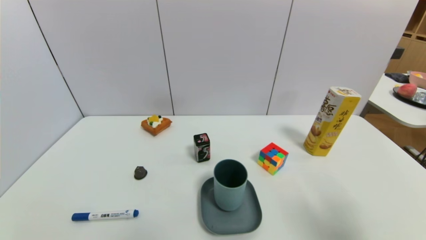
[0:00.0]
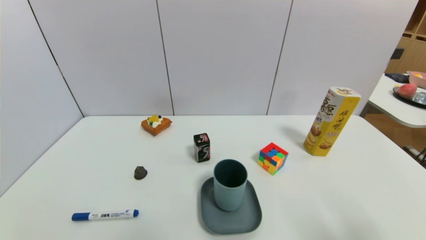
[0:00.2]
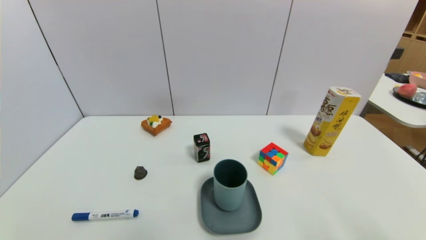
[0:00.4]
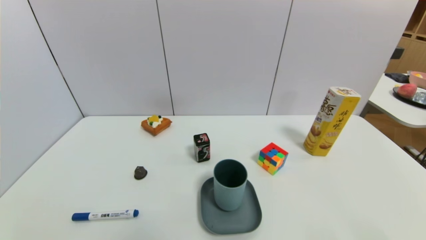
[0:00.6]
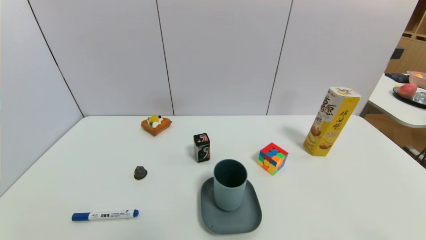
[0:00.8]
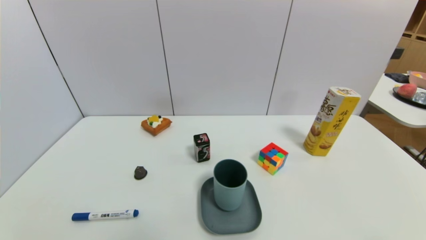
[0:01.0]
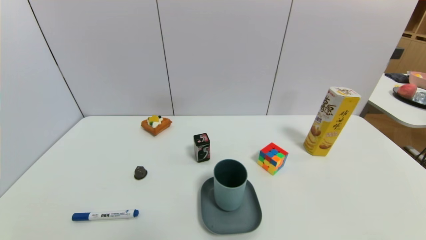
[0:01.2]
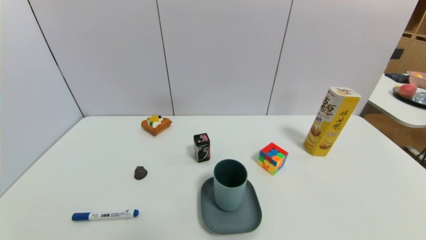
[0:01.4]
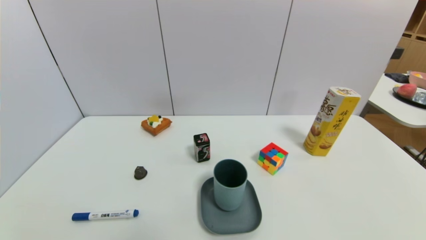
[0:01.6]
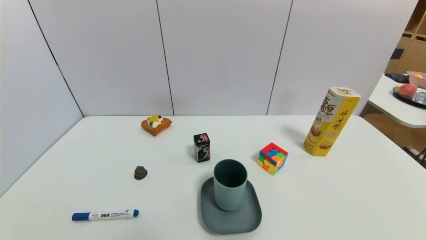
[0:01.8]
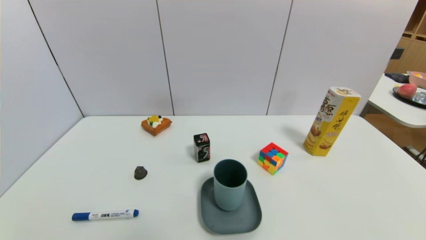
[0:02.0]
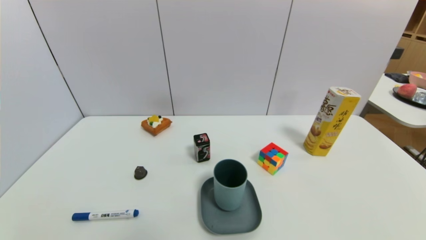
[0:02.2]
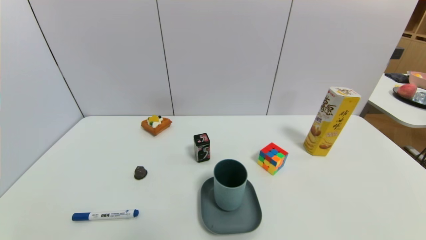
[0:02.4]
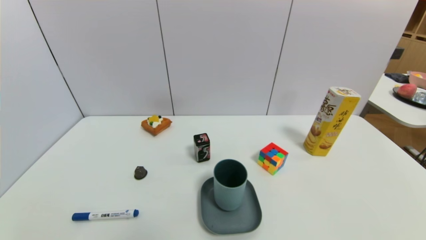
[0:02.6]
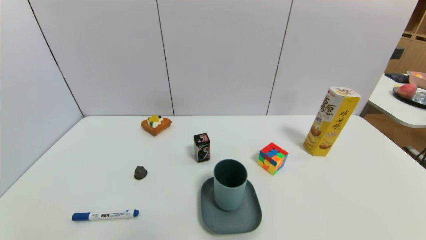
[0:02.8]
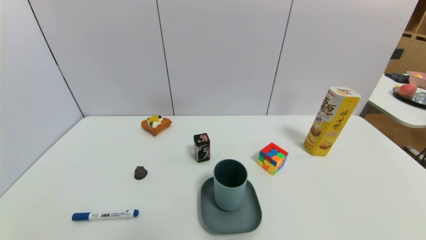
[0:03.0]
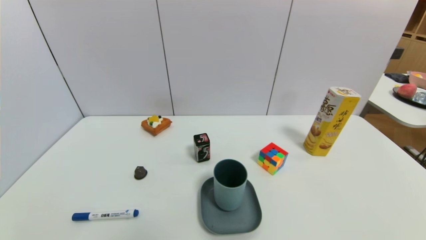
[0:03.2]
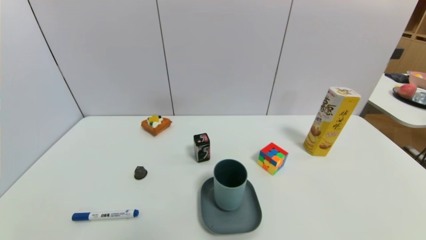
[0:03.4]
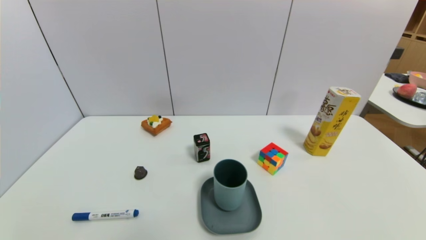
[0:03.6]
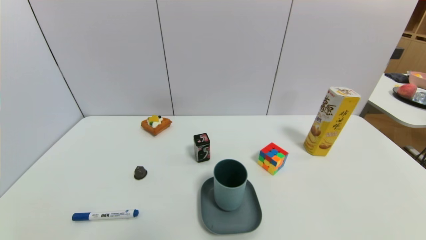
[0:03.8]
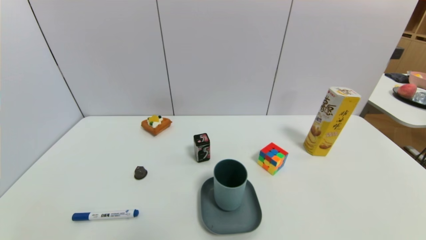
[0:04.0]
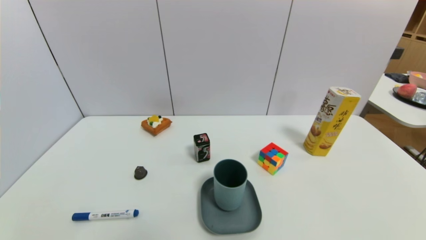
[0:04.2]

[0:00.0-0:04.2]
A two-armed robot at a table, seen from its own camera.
Task of the whole recording: use a gripper to pick the target object and place on the dish.
0:00.0 to 0:01.4: The right gripper goes roughly 20 cm downward and backward.
0:02.8 to 0:04.2: The two grippers keep their place.

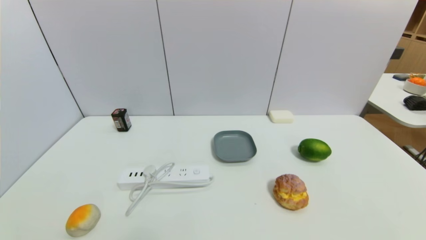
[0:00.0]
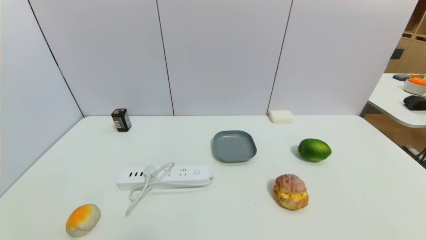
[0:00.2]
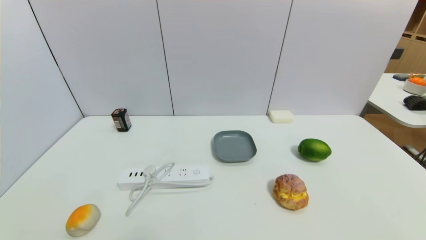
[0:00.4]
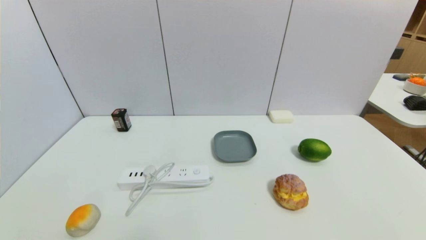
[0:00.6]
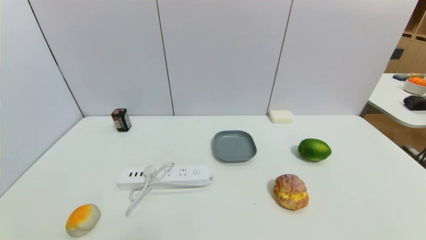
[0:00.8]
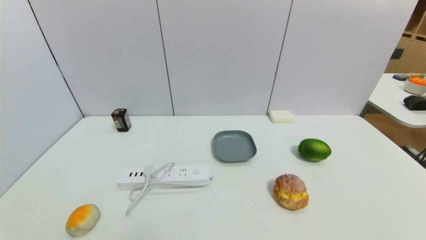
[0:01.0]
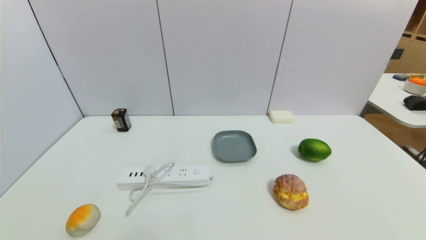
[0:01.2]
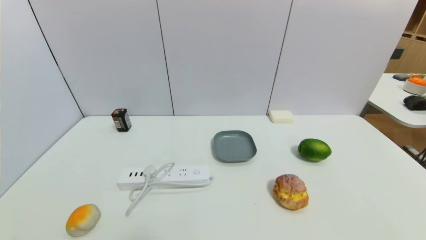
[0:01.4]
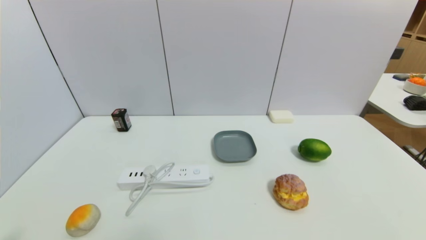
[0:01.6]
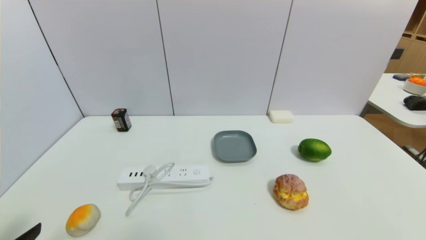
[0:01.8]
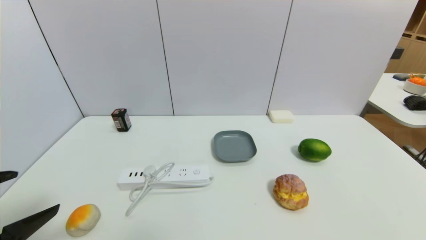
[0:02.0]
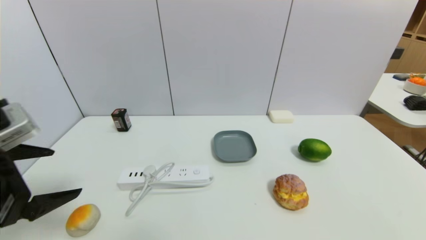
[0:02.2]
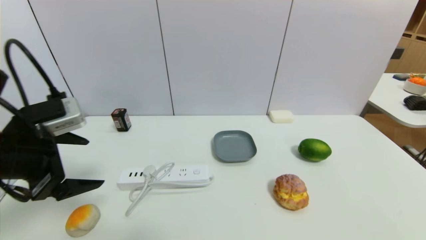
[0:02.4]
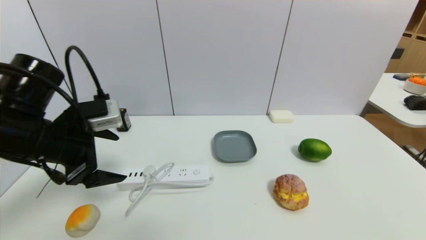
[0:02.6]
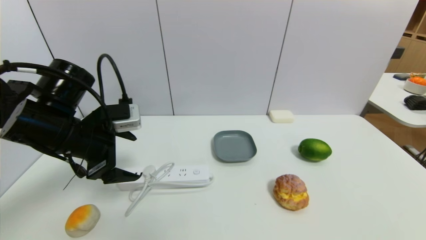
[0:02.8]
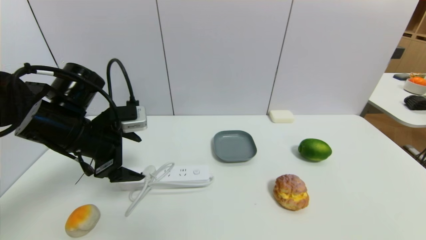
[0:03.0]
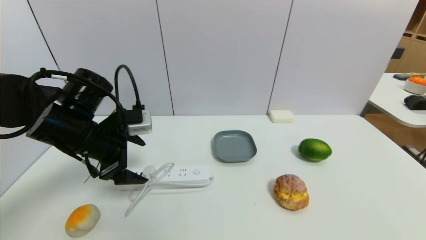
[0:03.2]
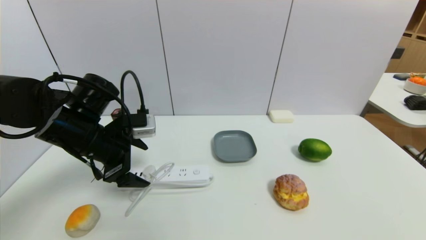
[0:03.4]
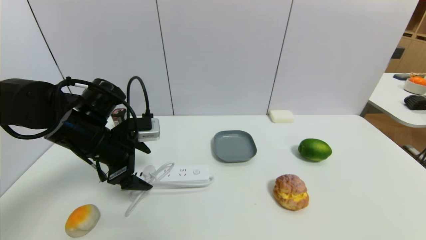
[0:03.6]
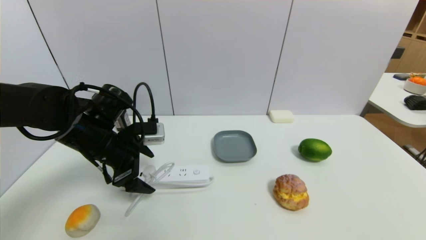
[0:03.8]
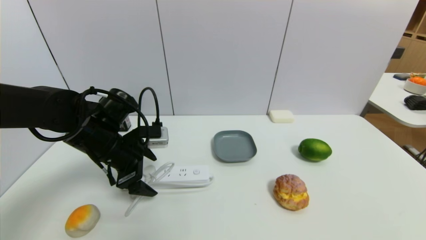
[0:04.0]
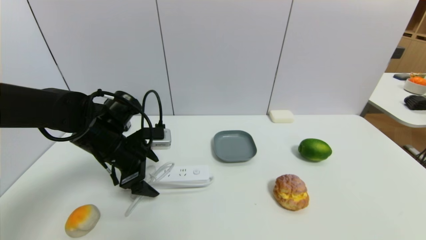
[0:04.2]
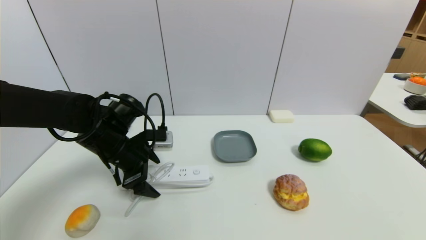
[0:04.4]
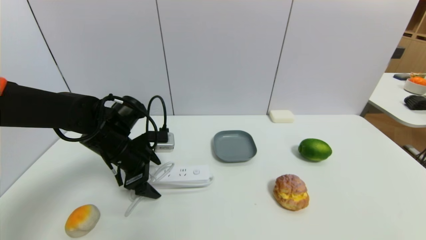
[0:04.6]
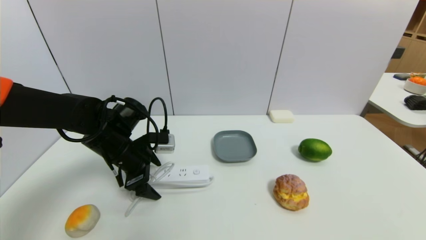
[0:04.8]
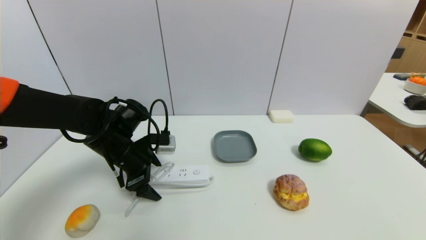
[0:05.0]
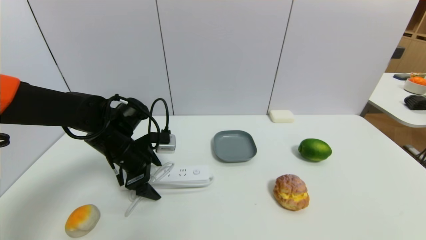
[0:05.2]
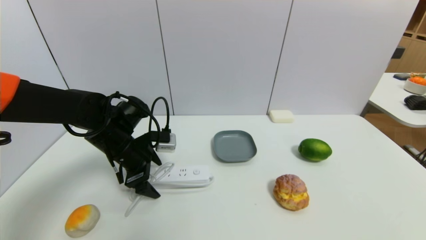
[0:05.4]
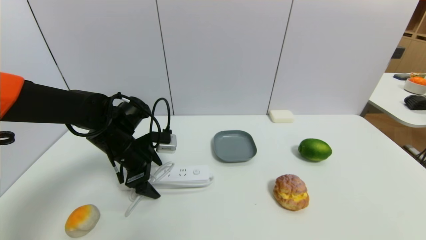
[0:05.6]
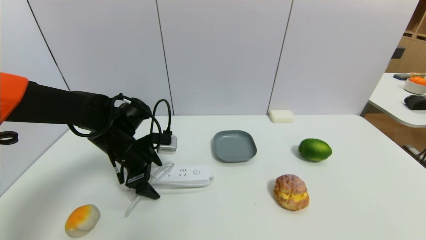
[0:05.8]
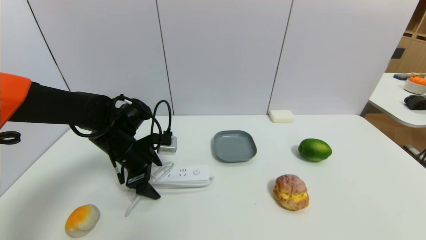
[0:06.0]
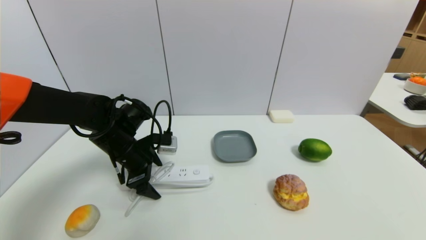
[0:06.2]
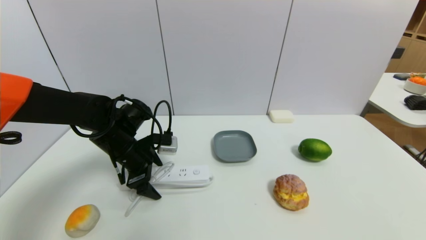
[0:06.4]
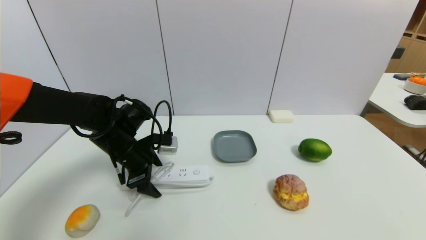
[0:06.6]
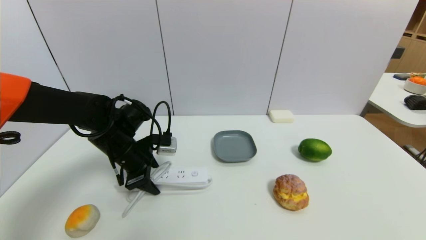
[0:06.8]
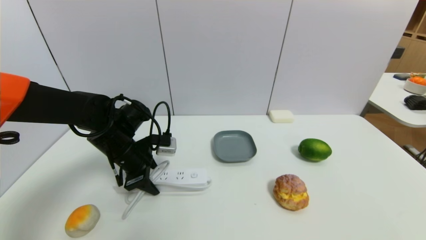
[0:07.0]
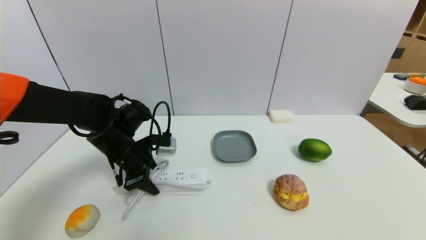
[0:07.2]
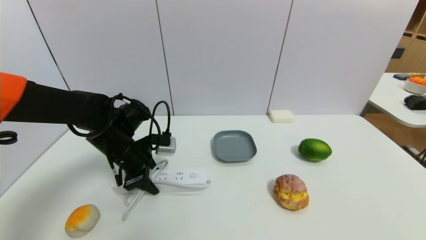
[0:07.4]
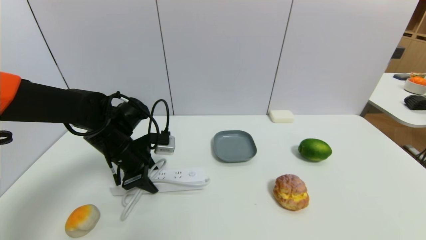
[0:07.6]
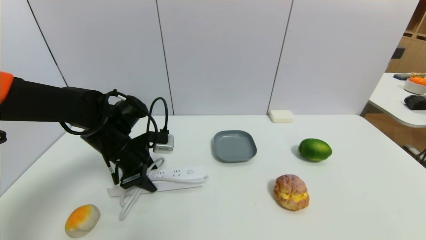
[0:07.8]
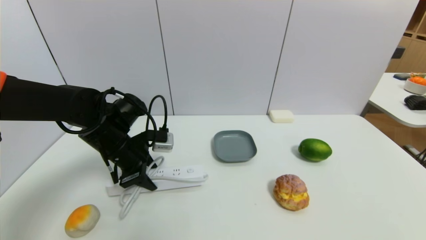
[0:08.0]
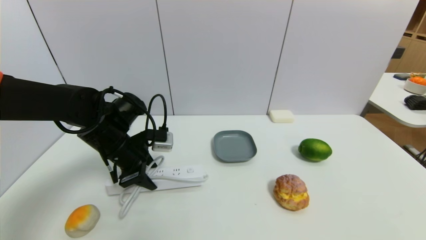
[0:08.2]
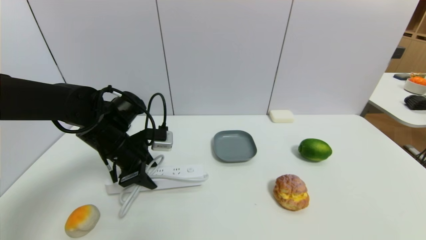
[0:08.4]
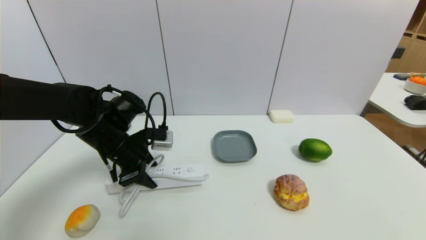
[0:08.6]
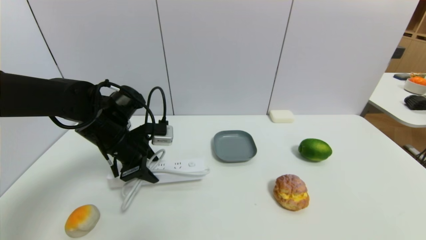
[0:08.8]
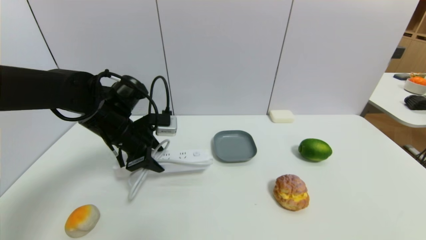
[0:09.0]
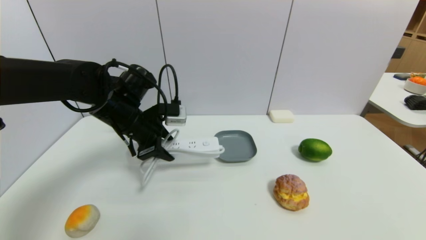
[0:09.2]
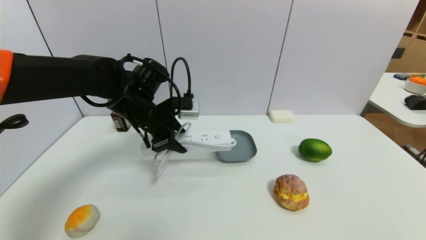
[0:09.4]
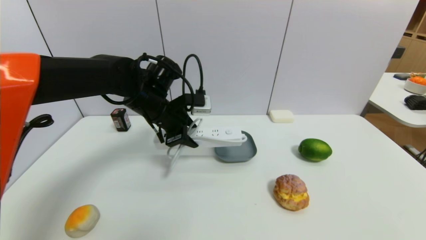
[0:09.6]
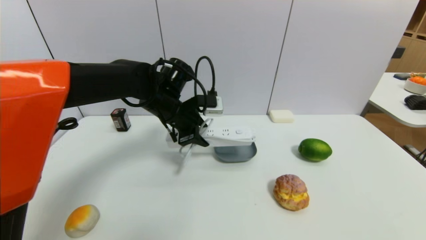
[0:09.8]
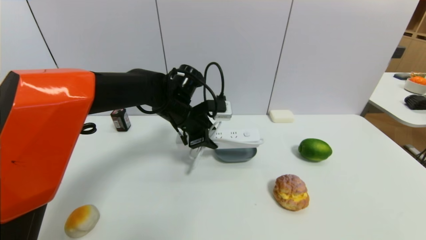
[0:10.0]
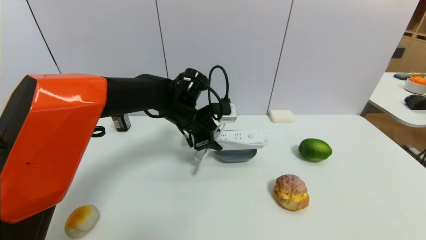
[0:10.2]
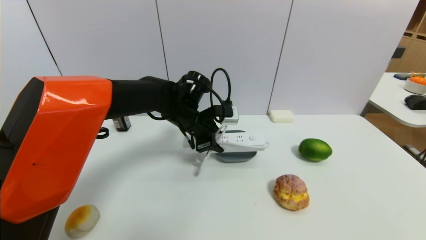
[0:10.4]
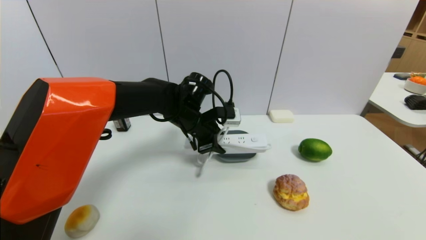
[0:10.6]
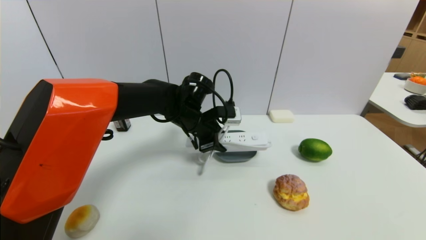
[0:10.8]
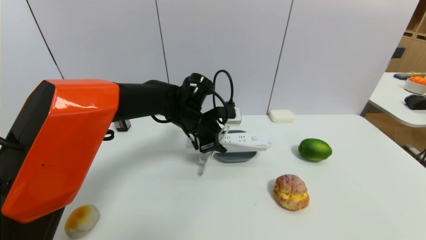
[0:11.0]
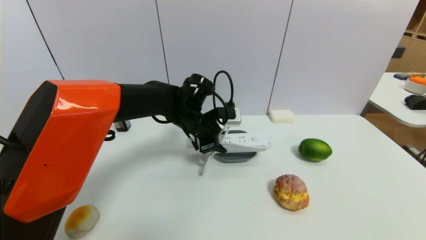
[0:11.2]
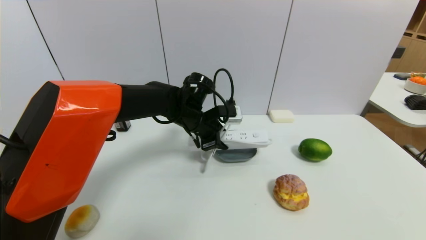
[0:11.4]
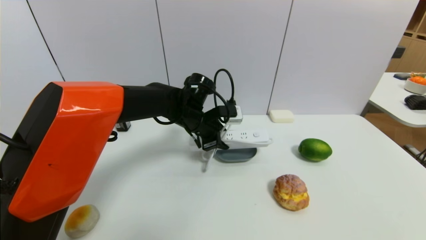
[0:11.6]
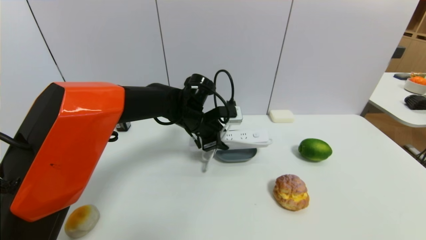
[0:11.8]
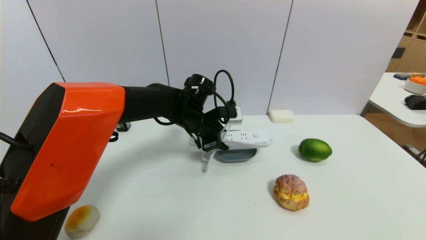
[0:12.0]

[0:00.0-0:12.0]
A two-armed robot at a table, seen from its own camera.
Task of the whole recording: use a gripper to pick the target object and place on the dish.
Step, 0:00.0 to 0:07.4: Grasp the plugboard with the left gripper.
0:01.6 to 0:03.0: The left gripper travels forward by some 25 cm.
0:03.0 to 0:04.4: The left gripper heads downward, covering roughly 5 cm.
0:04.4 to 0:06.0: The grippers stay close to where they were, moving slightly.
0:06.0 to 0:07.6: The left gripper closes.
0:07.6 to 0:09.0: The grippers make only small movements.
0:09.0 to 0:10.4: The left gripper moves to the right and forward, about 15 cm.
0:10.4 to 0:12.0: There are only small adjustments of the grippers.
